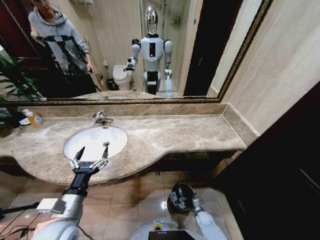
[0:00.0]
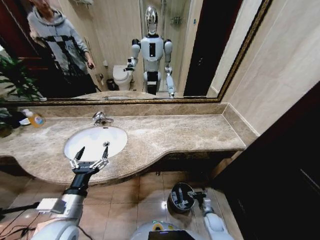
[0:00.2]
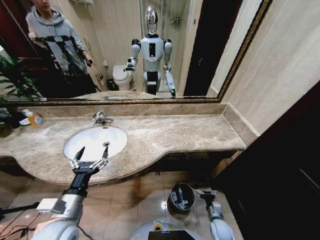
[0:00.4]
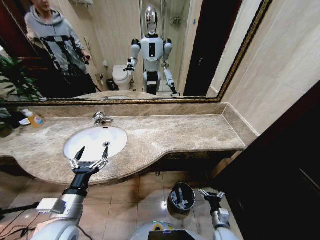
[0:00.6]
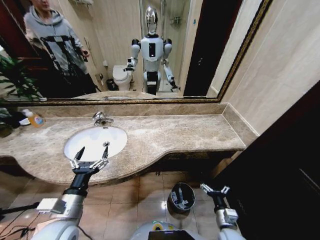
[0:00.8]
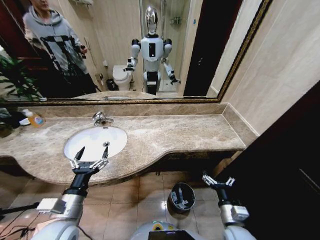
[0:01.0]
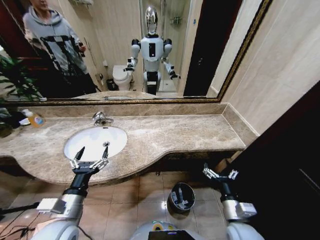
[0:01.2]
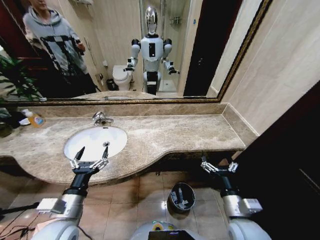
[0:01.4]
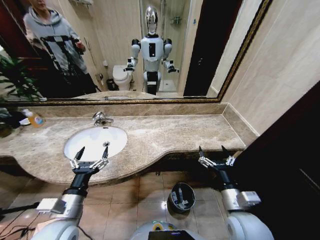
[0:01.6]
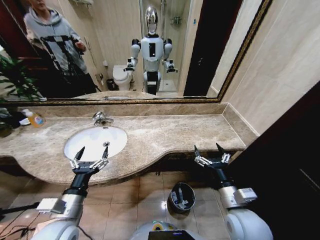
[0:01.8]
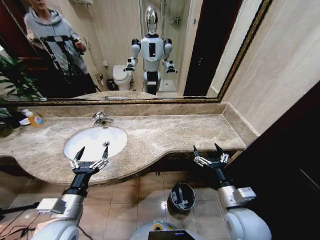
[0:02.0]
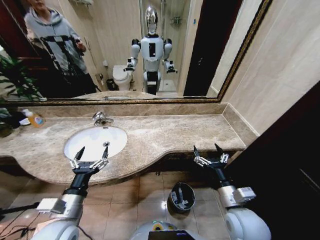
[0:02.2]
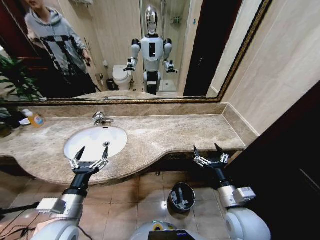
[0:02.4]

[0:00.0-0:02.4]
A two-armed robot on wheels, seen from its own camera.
Task of the whole recording: Pick up the trash from the sink and place it in the trash bin.
0:00.0 to 0:01.2: The right gripper moves upward, roughly 35 cm.
0:01.2 to 0:02.4: The right gripper heads upward, covering approximately 5 cm.
